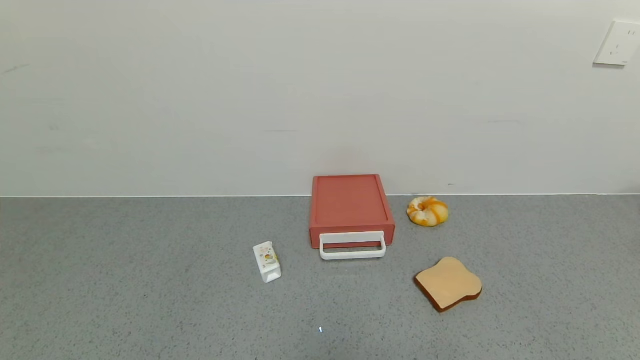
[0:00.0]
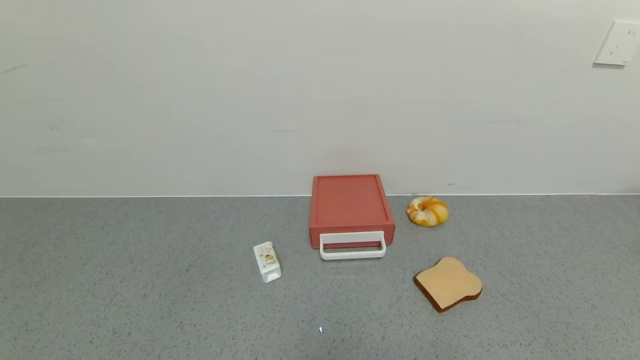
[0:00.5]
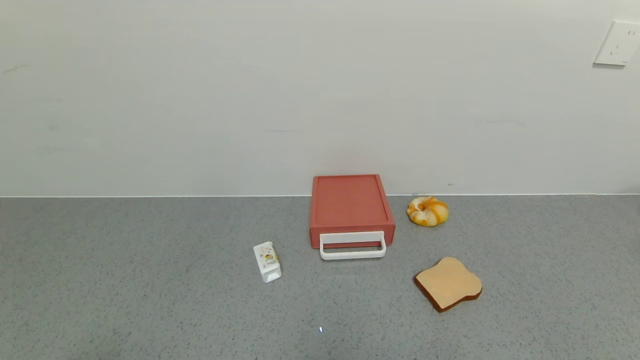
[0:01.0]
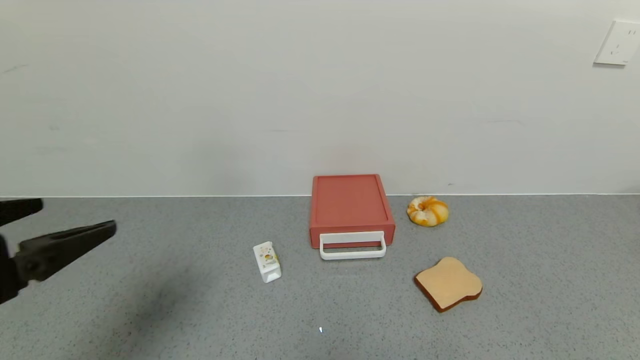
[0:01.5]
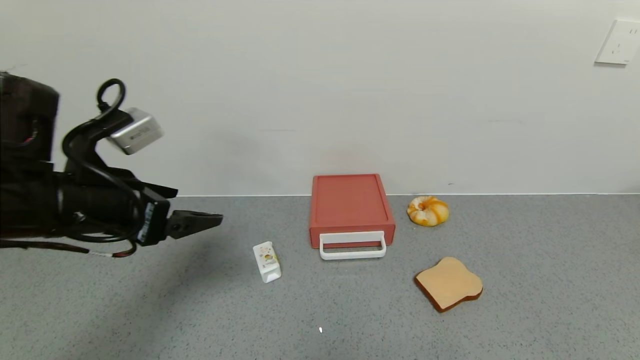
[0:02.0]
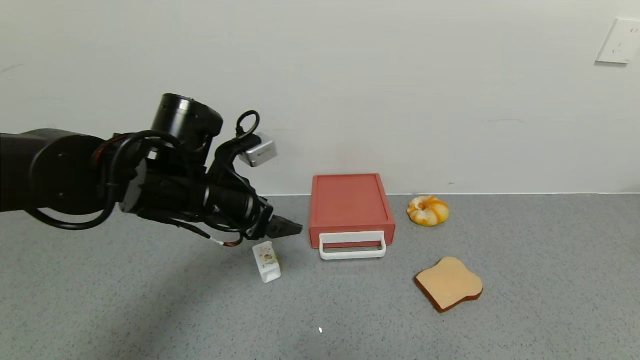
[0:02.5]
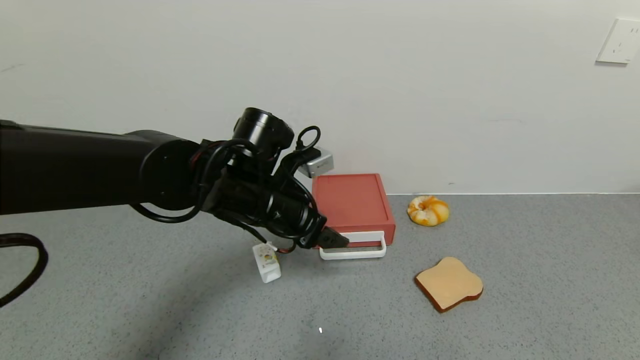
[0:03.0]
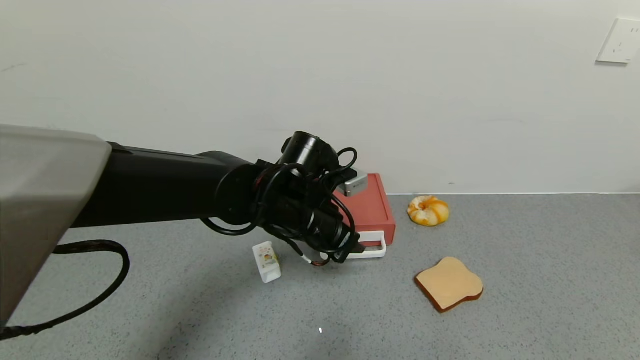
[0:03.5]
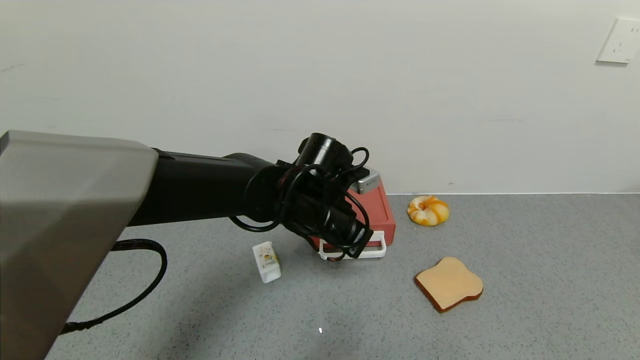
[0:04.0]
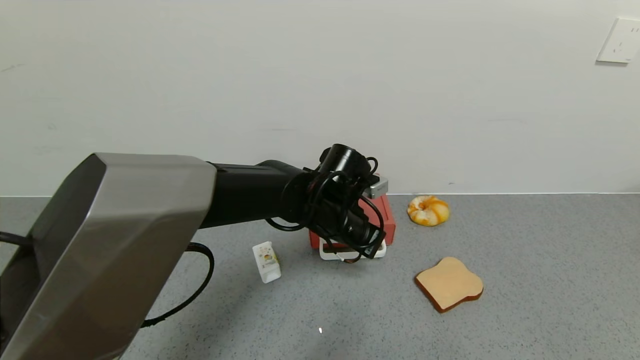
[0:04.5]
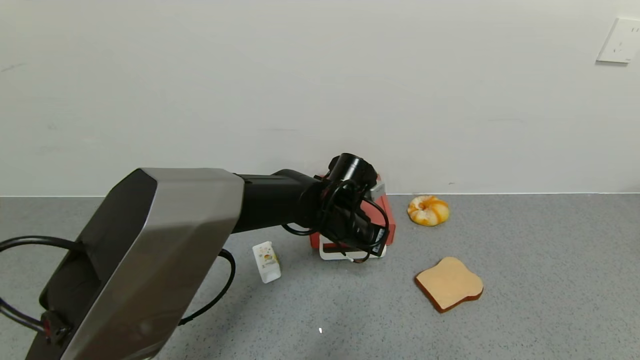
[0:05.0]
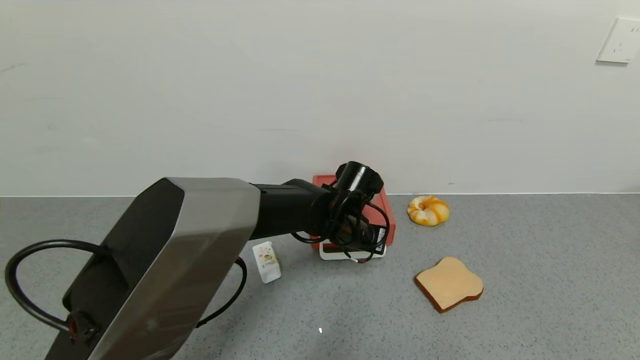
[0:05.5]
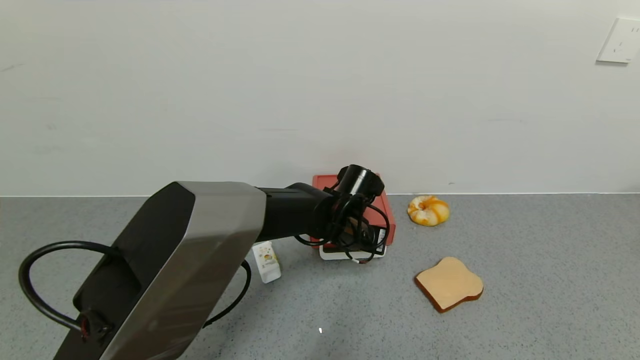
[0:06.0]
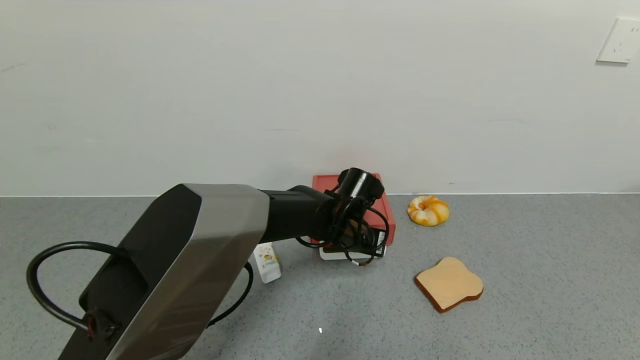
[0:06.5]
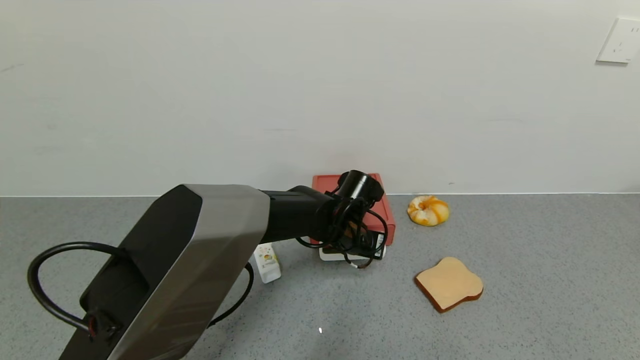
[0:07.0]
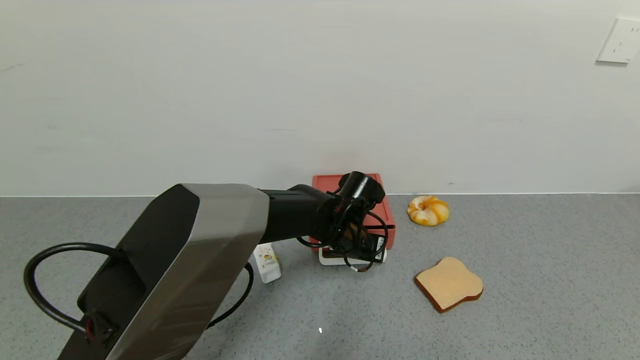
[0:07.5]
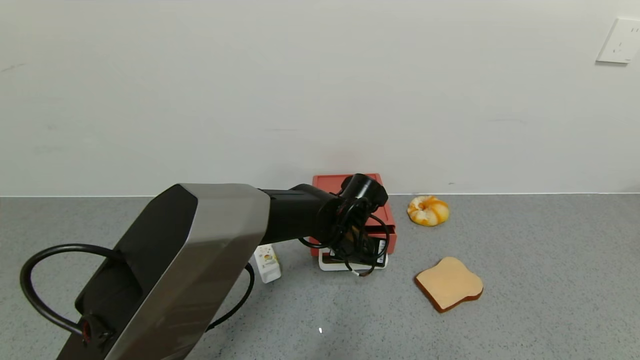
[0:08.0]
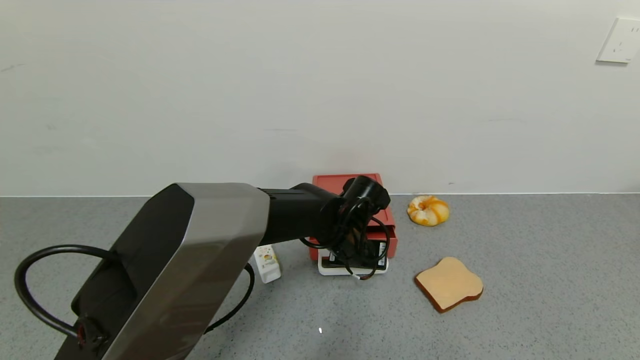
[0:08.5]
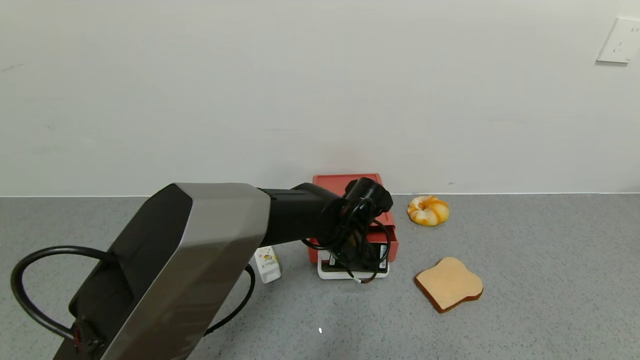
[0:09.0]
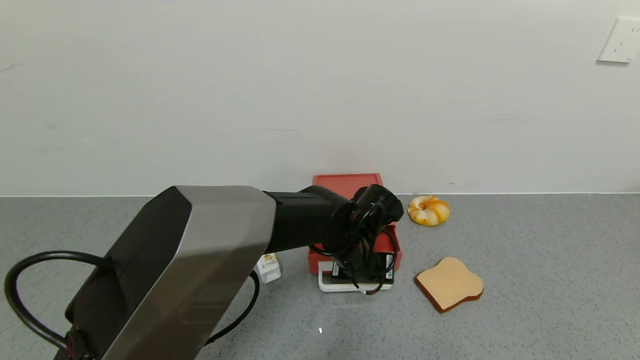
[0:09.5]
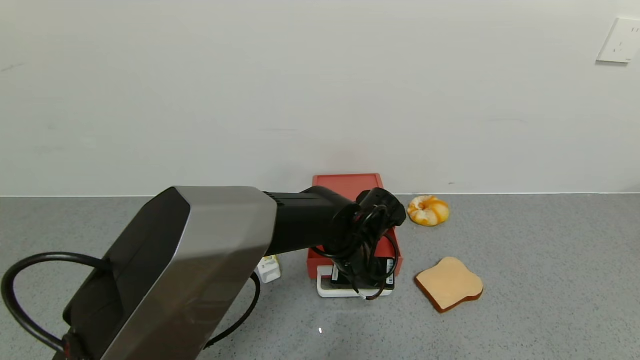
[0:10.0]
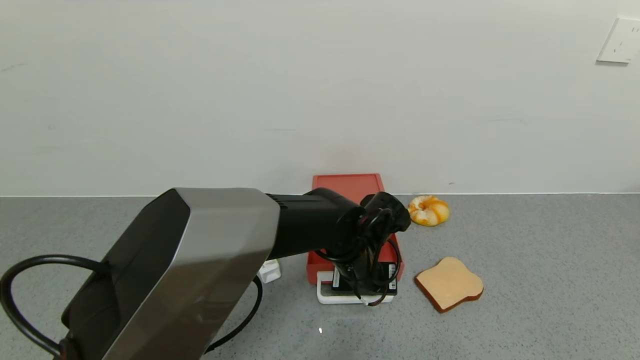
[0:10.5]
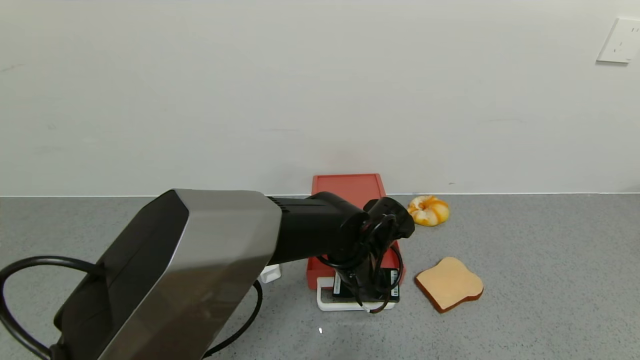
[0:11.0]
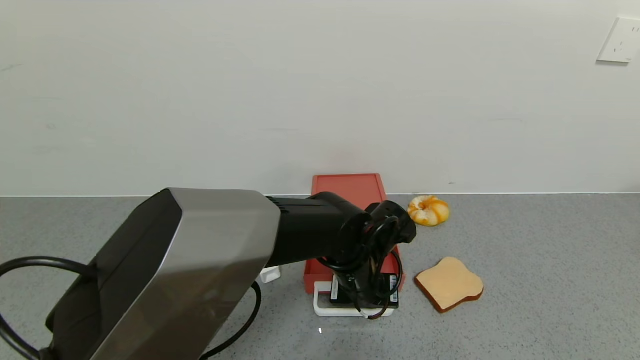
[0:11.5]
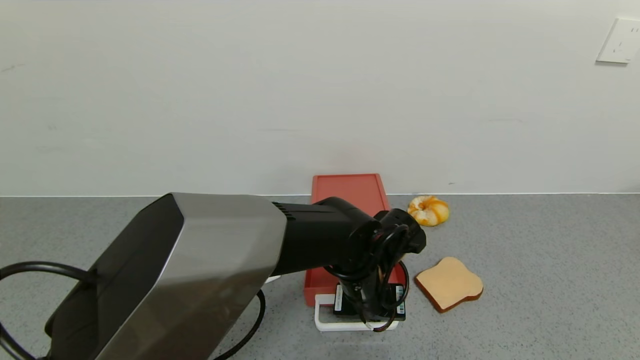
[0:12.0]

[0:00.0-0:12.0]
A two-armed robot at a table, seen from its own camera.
Task of the whole recording: use the gripper to open the drawer and close the red drawer.
0:00.0 to 0:02.0: The left gripper goes some 30 cm forward and upward.
0:02.0 to 0:04.0: The left gripper goes approximately 25 cm to the right and forward, and closes.
0:04.0 to 0:06.0: The left gripper travels downward by about 5 cm.
0:06.0 to 0:08.0: The grippers stay close to where they were, moving slightly.
0:08.0 to 0:10.0: The grippers stay close to where they were, moving slightly.
0:10.0 to 0:12.0: The grippers move only a little.

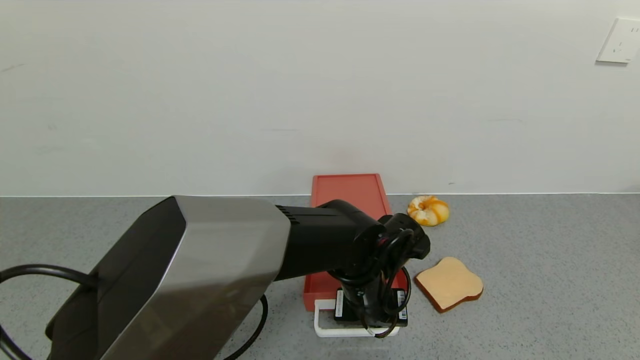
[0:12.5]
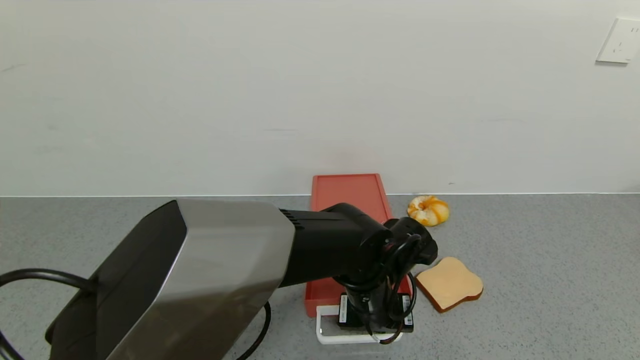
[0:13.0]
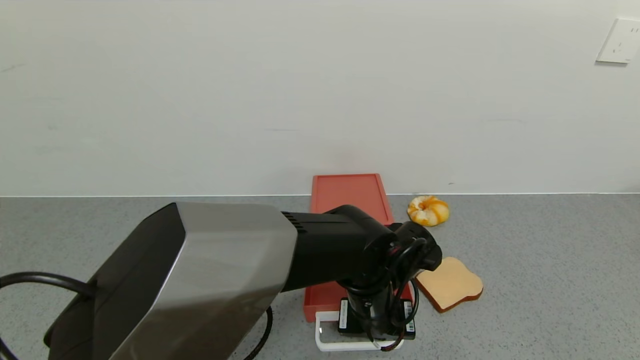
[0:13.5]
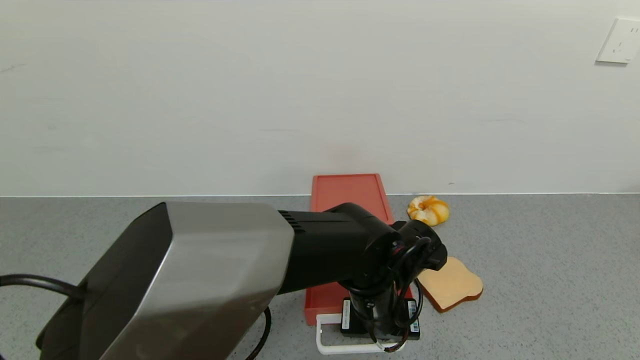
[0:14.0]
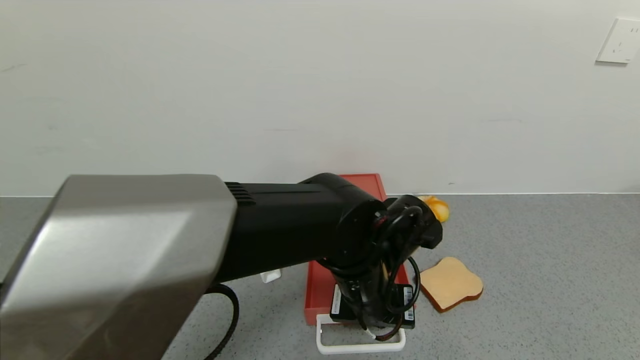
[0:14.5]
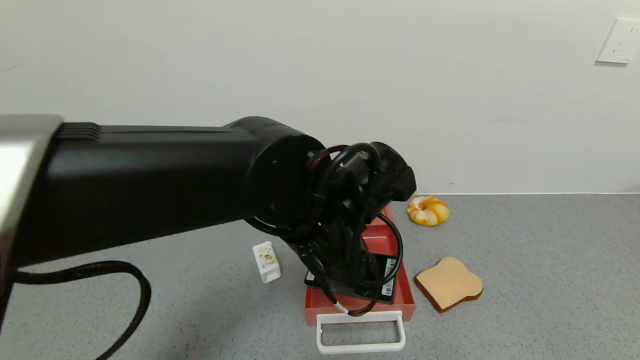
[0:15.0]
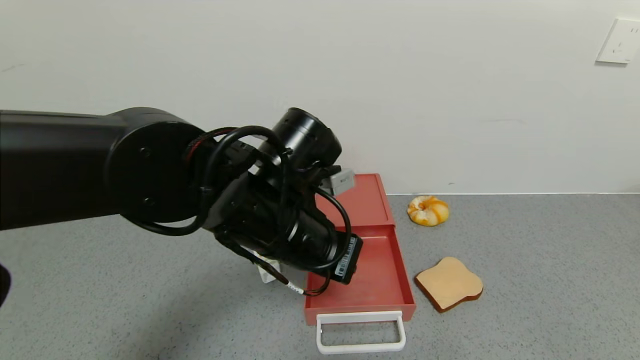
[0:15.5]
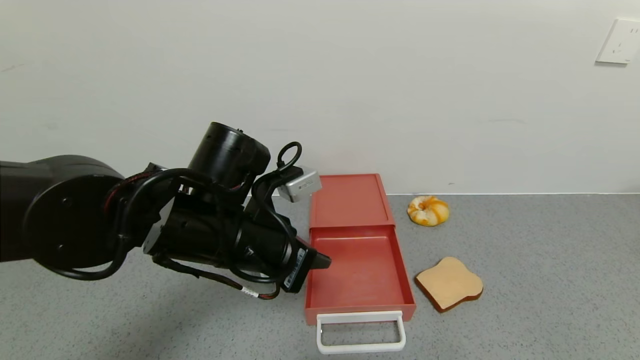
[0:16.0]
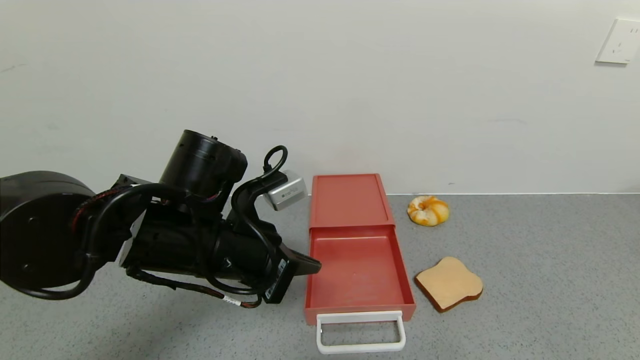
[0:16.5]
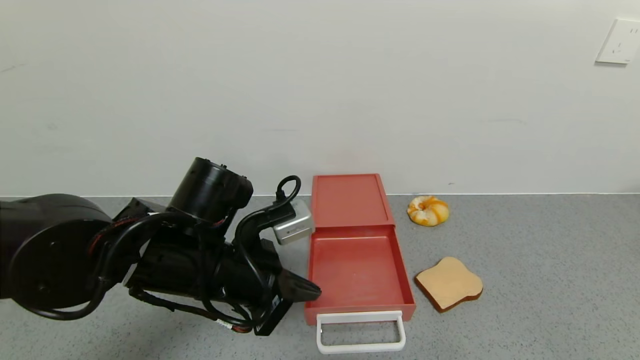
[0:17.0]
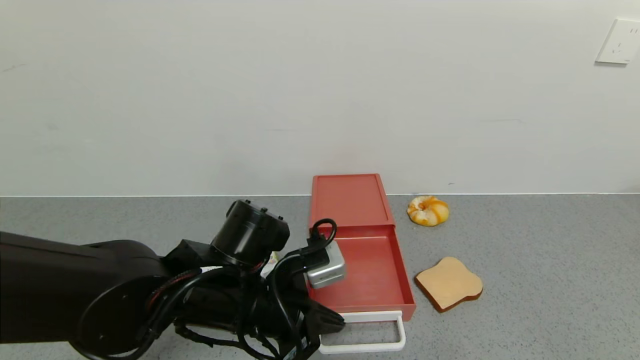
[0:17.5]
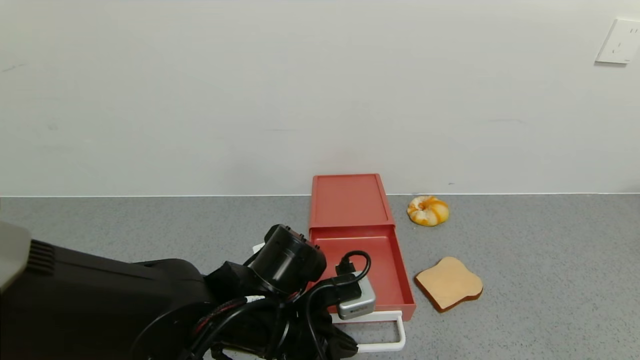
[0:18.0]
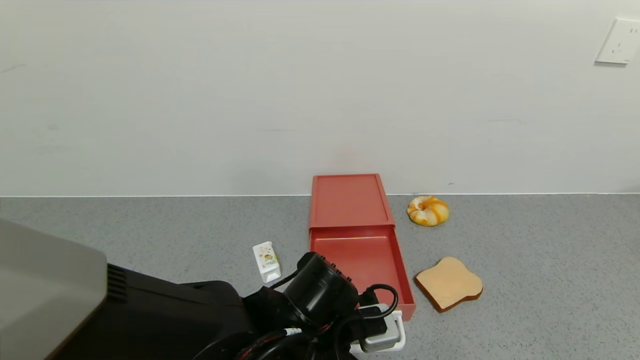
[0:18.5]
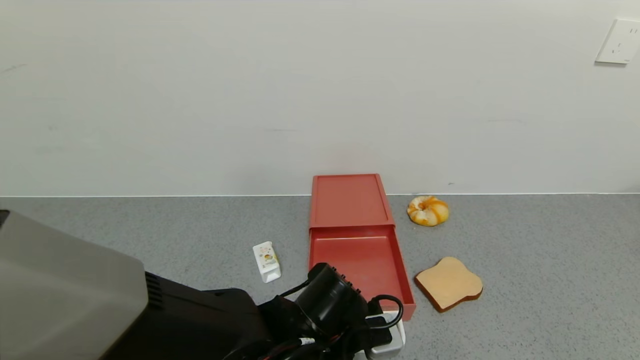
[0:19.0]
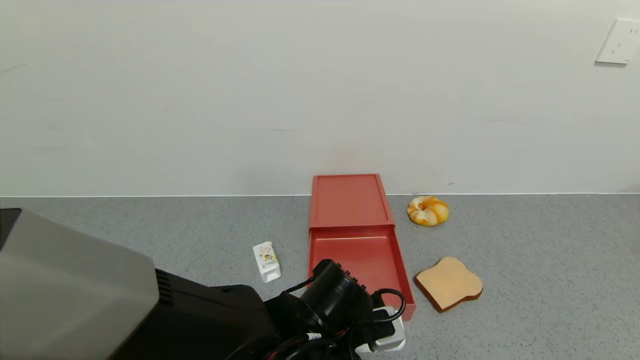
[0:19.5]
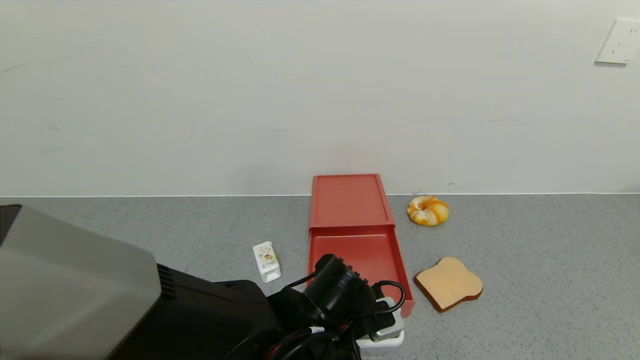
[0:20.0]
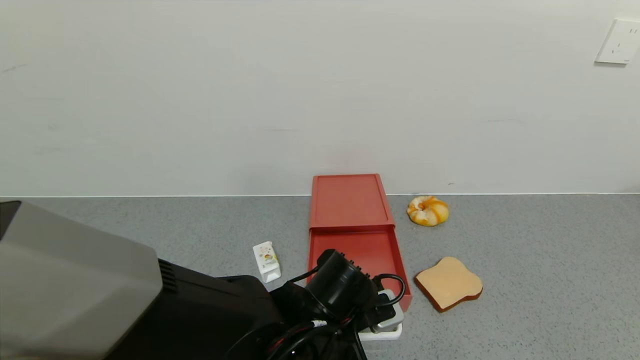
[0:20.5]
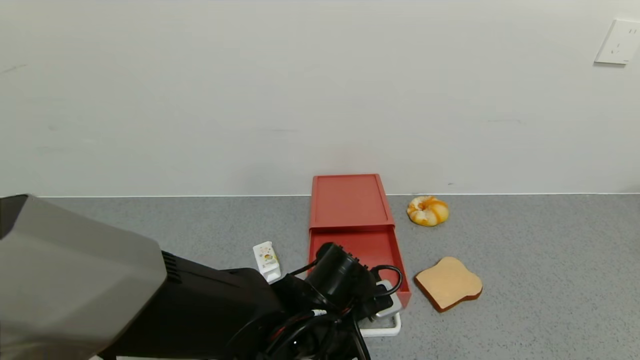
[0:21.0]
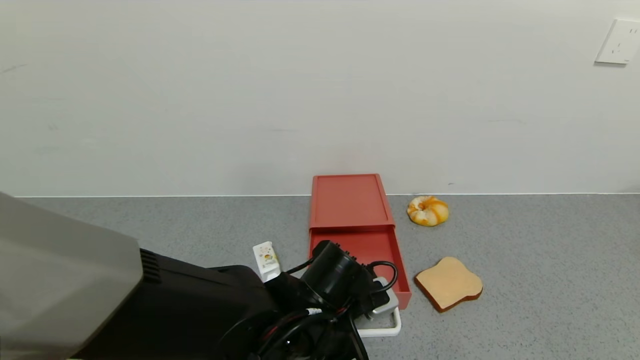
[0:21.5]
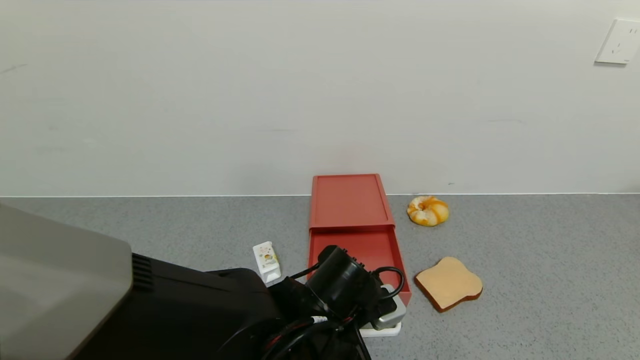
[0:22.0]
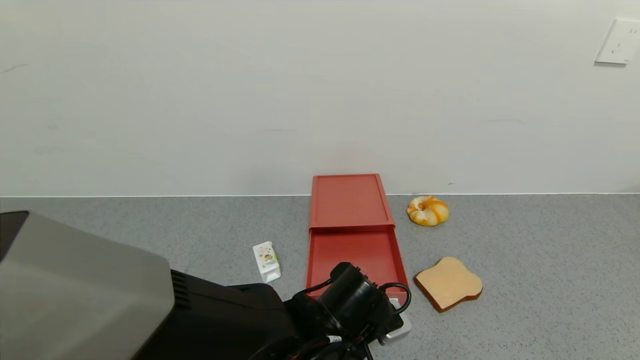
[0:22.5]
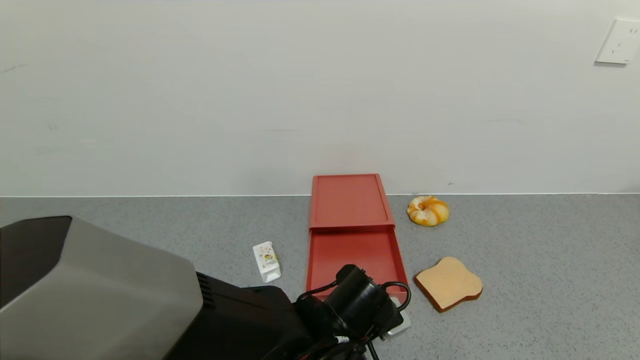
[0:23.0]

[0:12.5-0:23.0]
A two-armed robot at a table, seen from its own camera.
Task of the whole recording: use the gripper to open the drawer and close the red drawer.
Step, 0:12.5 to 0:14.5: Open the red drawer with the left gripper.
0:12.5 to 0:14.5: The left gripper moves some 5 cm.
0:14.5 to 0:16.5: The left gripper shifts some 15 cm to the left.
0:16.5 to 0:19.0: The left gripper heads downward and to the right, covering some 15 cm.
0:19.0 to 0:23.0: The grippers stay close to where they were, moving slightly.
